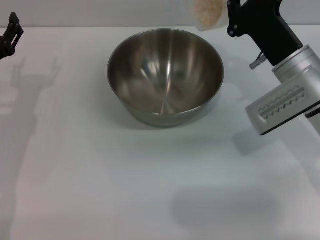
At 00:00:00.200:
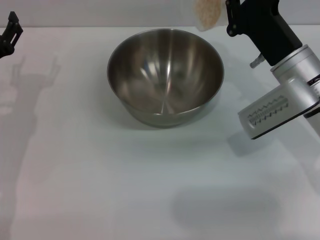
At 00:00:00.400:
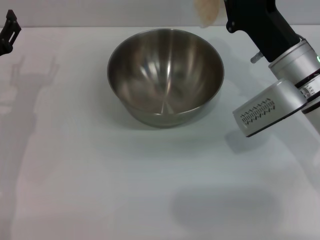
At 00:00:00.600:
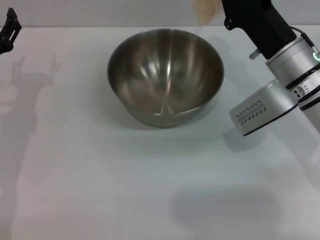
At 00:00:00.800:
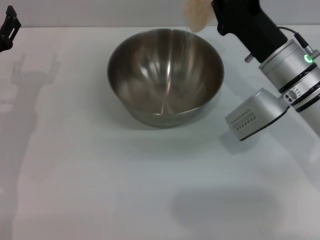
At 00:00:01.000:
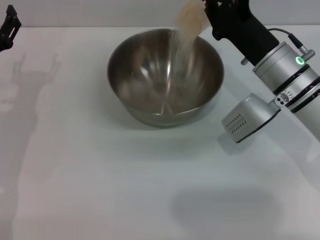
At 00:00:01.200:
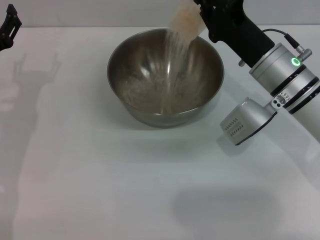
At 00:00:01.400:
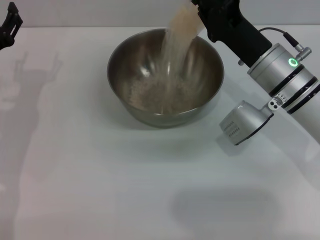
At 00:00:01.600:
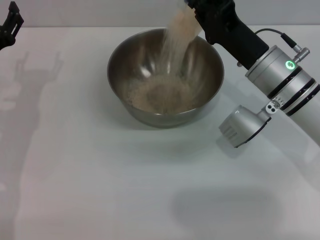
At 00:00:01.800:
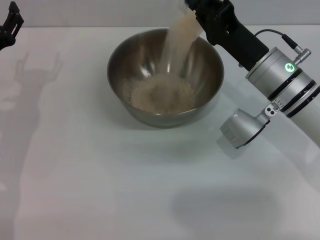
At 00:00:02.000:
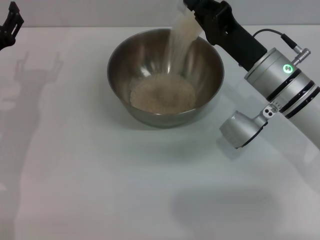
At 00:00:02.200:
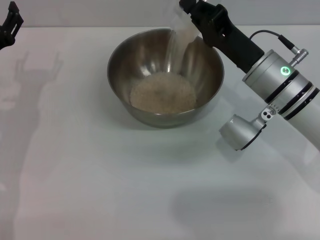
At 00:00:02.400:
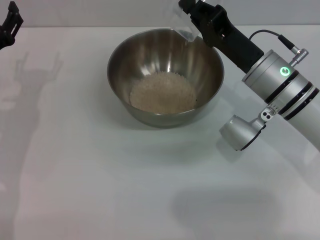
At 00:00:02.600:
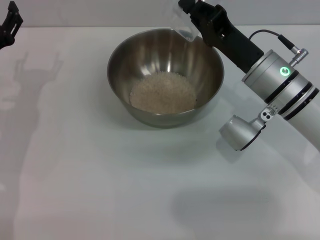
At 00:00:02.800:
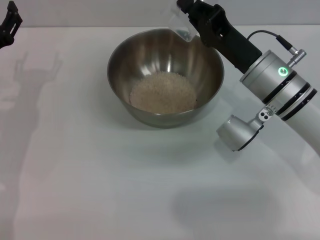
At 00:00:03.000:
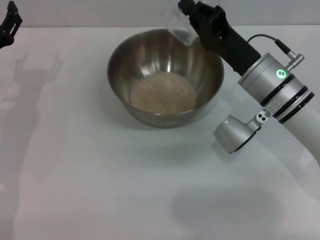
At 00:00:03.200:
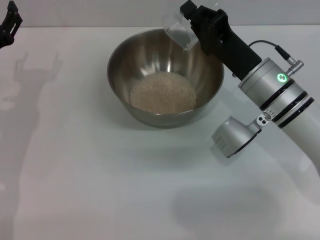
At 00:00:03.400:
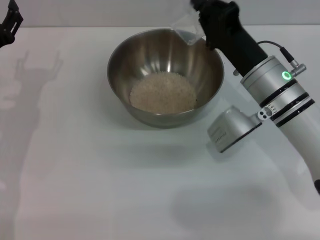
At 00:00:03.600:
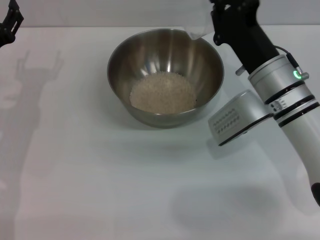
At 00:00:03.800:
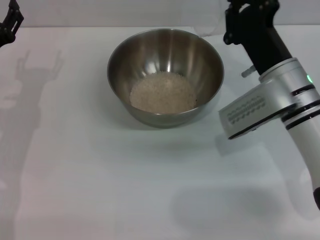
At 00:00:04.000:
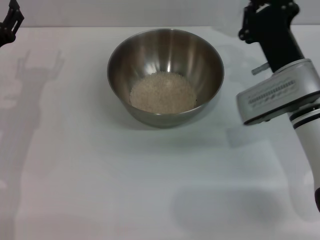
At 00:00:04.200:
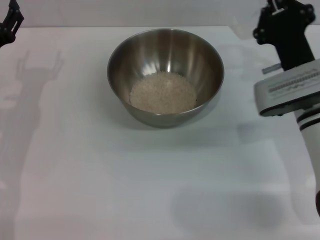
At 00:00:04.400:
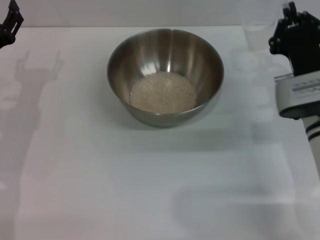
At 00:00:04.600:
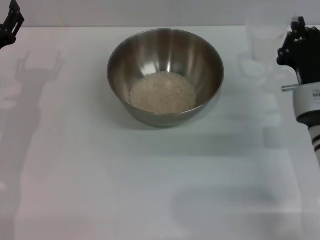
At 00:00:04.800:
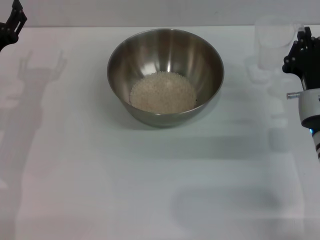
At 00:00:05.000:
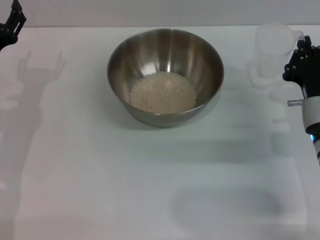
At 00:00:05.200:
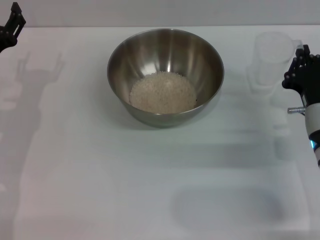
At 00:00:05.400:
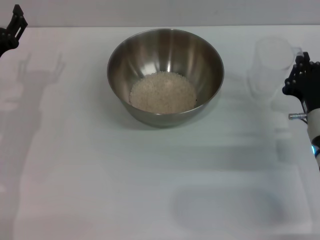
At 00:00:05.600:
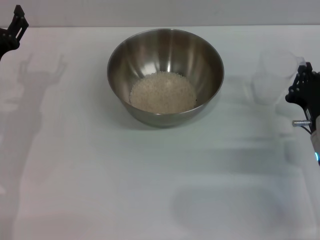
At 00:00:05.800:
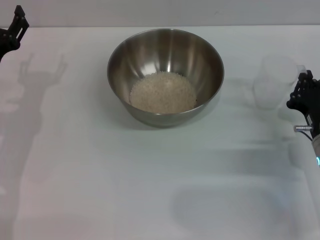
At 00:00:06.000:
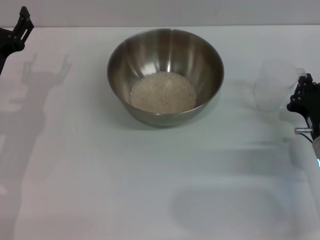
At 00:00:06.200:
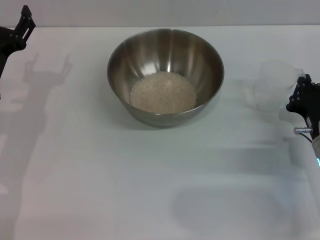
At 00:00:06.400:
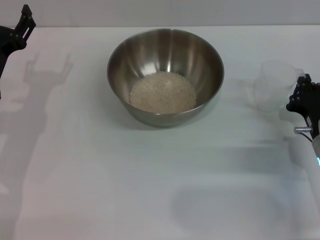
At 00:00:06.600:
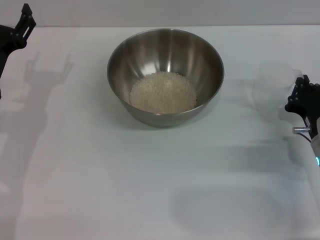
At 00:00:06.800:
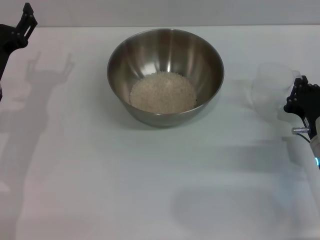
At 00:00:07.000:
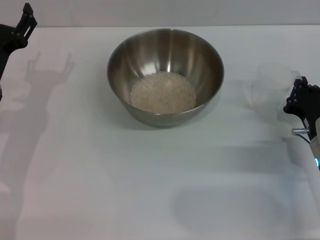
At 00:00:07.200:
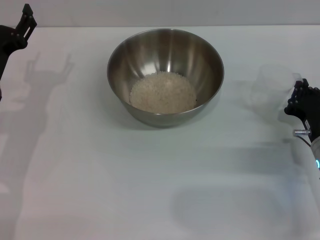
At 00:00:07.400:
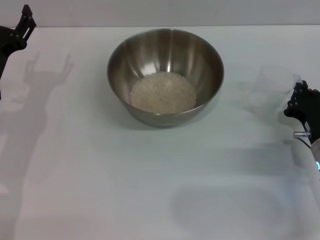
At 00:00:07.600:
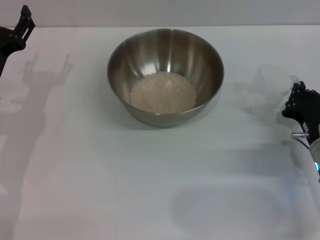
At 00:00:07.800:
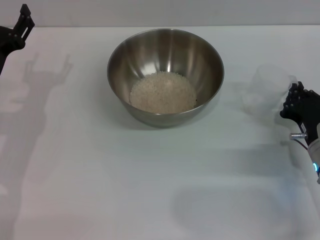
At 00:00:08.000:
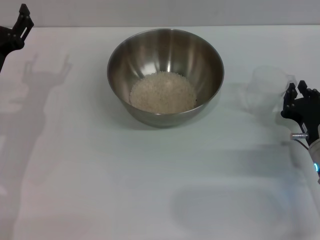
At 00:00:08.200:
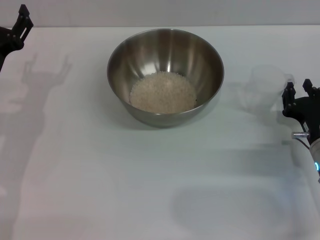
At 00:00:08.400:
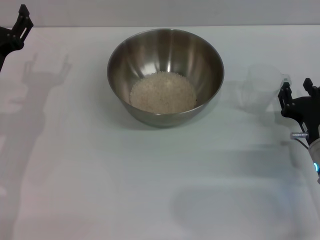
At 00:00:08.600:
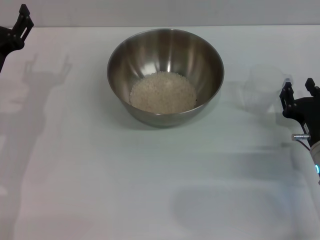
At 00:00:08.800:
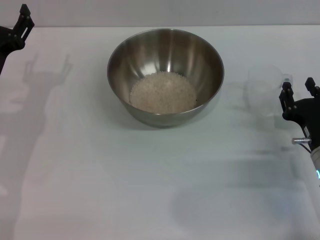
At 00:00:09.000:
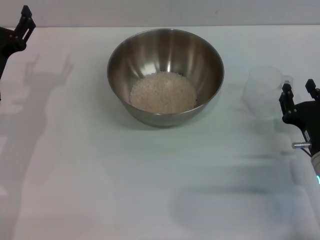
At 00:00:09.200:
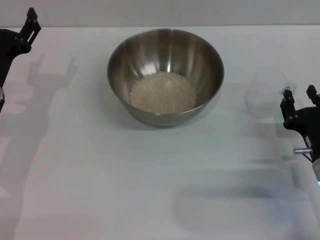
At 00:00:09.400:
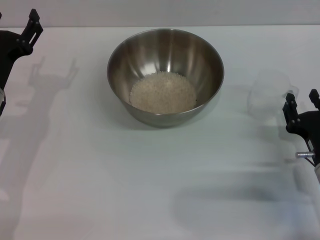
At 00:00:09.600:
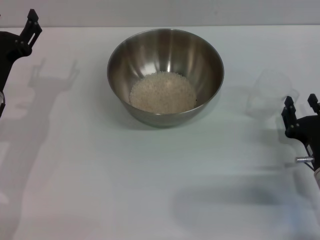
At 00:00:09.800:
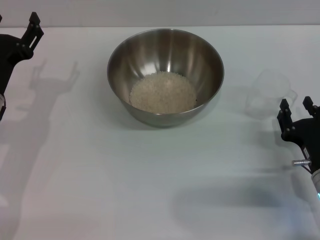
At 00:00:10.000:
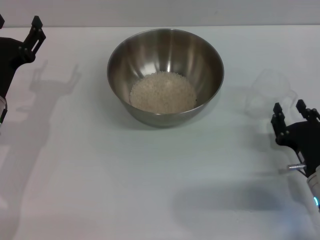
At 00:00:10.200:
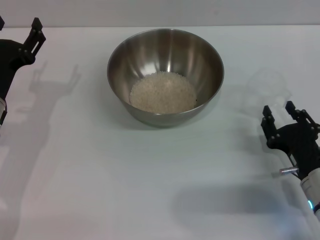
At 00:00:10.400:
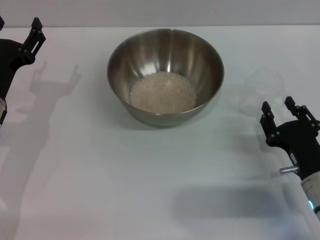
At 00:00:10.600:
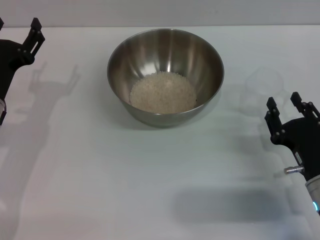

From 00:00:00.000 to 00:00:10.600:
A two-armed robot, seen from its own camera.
Task of the whole recording: Place the bowl in the middle of the table with one hand and pour the rice from the grain cup into it with the other hand.
Step, from 00:00:00.000 to 00:00:04.200: Pour the rice from the cup into the bowl with the right gripper.
Step, from 00:00:04.400 to 00:00:09.800: Place the cup on the table with the right gripper.
From 00:00:01.600 to 00:00:03.000: The grippers stay close to where they were, moving slightly.
From 00:00:03.000 to 00:00:04.600: The right gripper travels to the right by roughly 5 cm.
From 00:00:04.600 to 00:00:06.000: The right gripper changes place by about 5 cm.
From 00:00:06.000 to 00:00:07.600: Both grippers stay put.
From 00:00:07.600 to 00:00:09.000: The right gripper opens up.
From 00:00:09.000 to 00:00:10.600: The grippers make only small movements.

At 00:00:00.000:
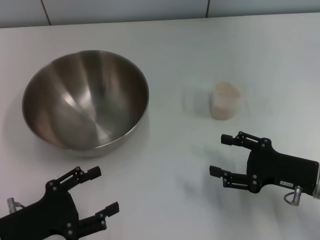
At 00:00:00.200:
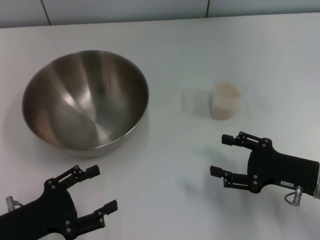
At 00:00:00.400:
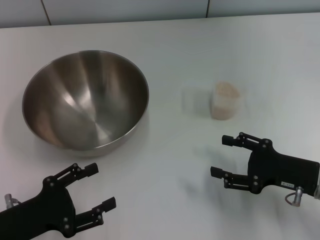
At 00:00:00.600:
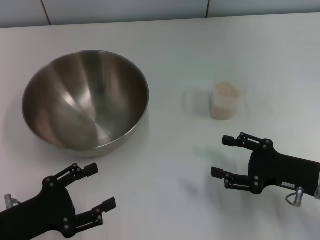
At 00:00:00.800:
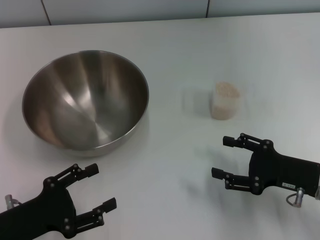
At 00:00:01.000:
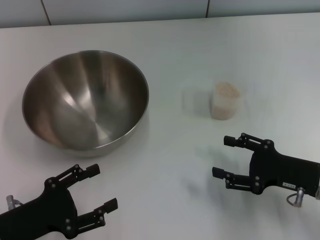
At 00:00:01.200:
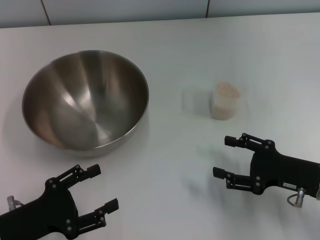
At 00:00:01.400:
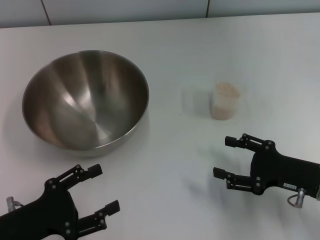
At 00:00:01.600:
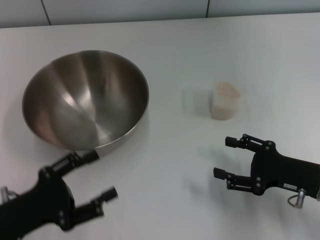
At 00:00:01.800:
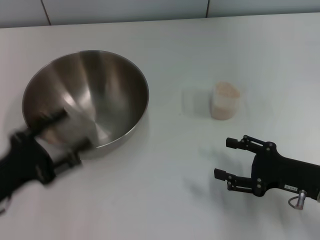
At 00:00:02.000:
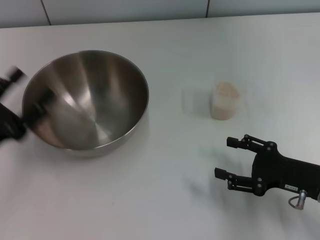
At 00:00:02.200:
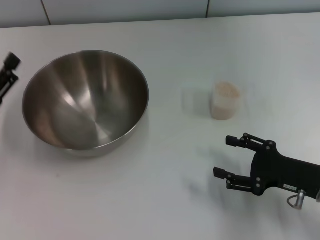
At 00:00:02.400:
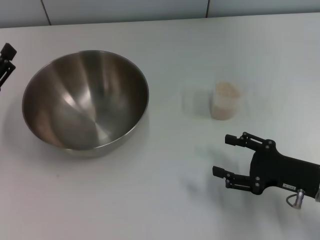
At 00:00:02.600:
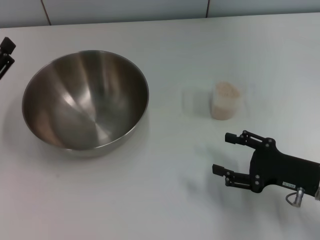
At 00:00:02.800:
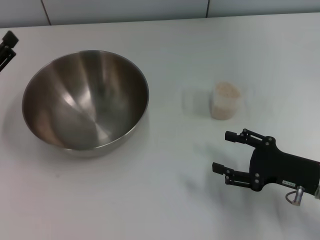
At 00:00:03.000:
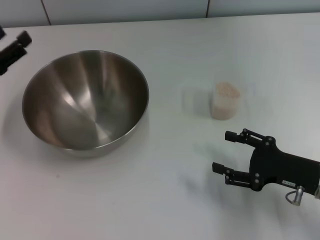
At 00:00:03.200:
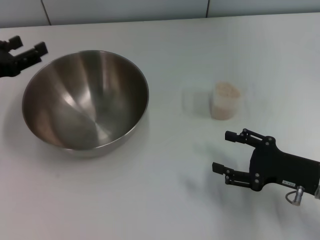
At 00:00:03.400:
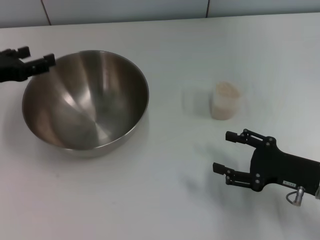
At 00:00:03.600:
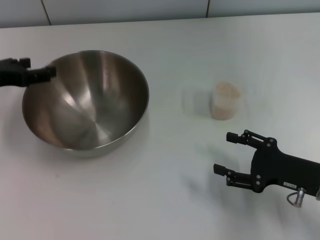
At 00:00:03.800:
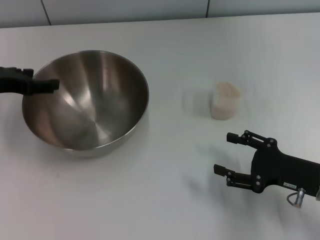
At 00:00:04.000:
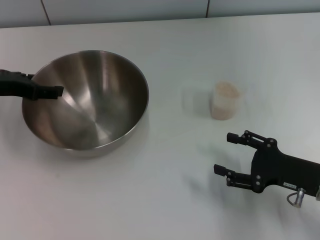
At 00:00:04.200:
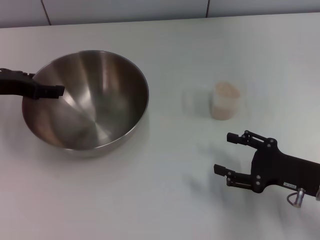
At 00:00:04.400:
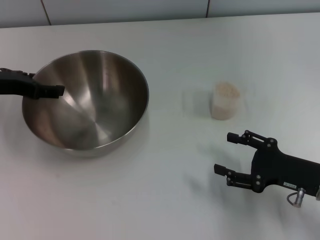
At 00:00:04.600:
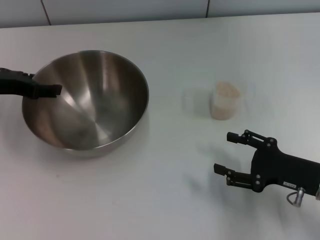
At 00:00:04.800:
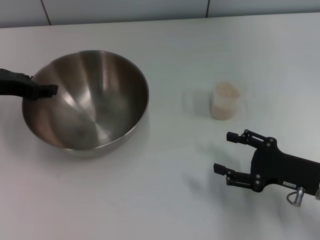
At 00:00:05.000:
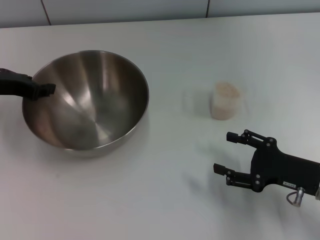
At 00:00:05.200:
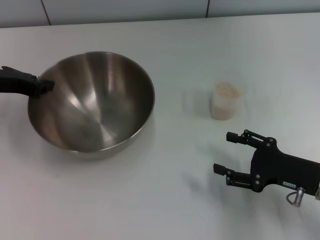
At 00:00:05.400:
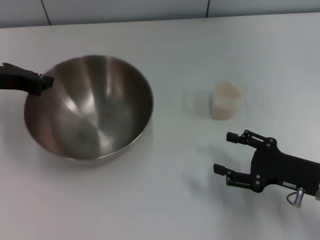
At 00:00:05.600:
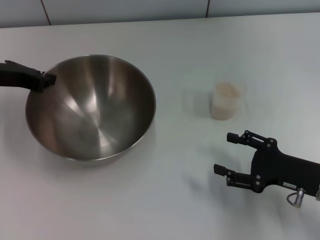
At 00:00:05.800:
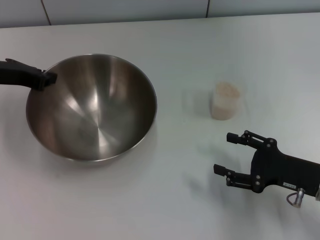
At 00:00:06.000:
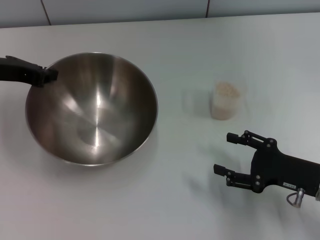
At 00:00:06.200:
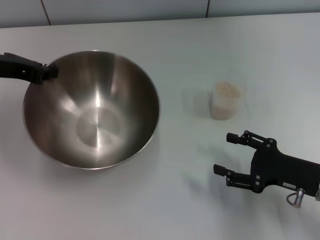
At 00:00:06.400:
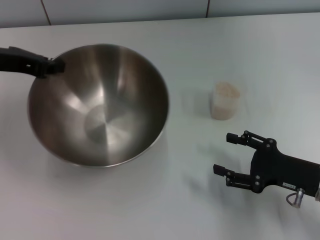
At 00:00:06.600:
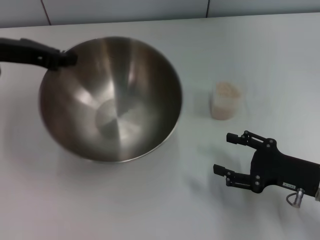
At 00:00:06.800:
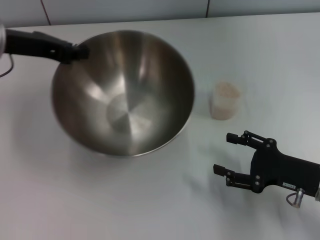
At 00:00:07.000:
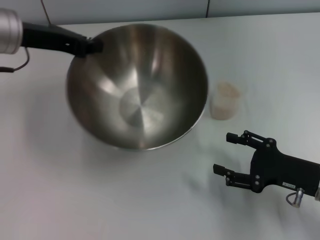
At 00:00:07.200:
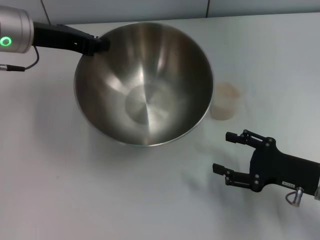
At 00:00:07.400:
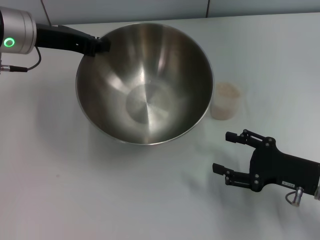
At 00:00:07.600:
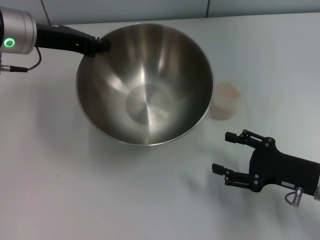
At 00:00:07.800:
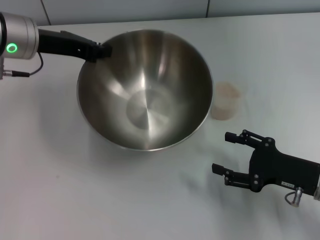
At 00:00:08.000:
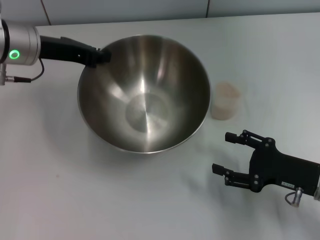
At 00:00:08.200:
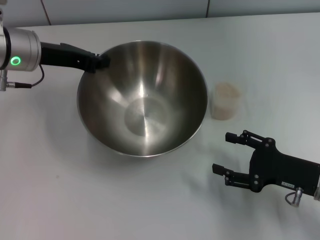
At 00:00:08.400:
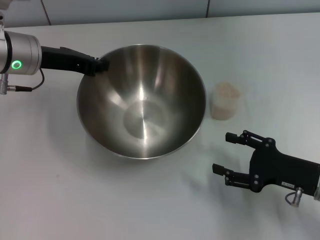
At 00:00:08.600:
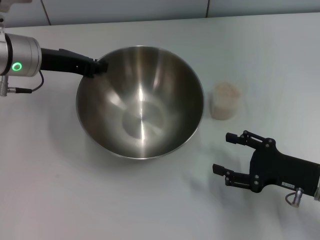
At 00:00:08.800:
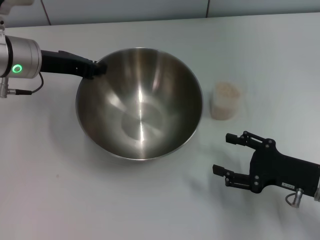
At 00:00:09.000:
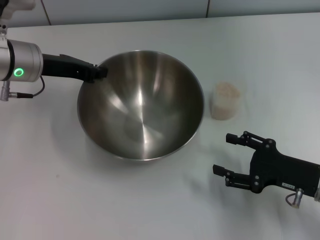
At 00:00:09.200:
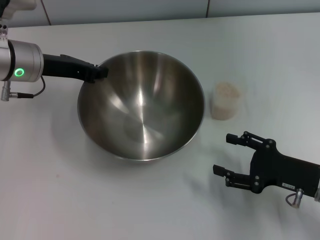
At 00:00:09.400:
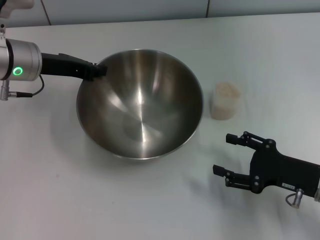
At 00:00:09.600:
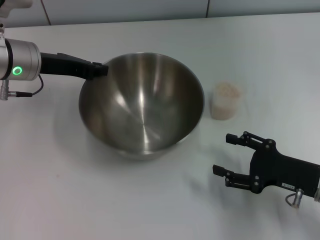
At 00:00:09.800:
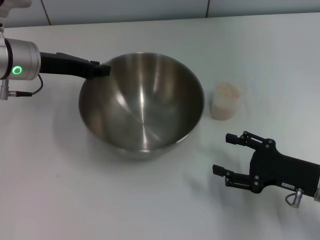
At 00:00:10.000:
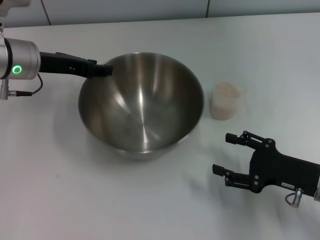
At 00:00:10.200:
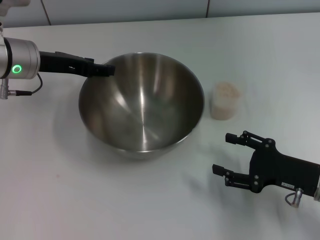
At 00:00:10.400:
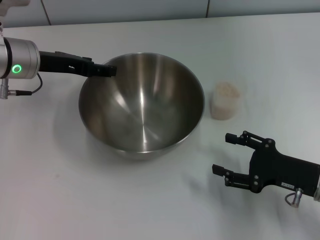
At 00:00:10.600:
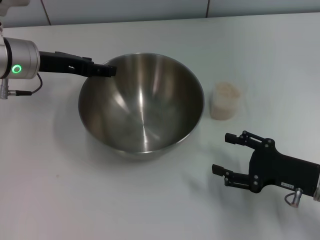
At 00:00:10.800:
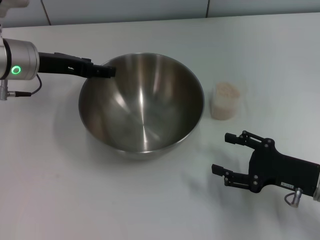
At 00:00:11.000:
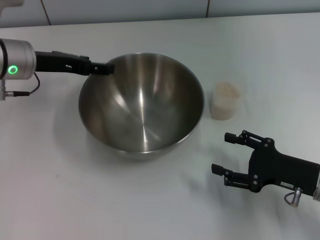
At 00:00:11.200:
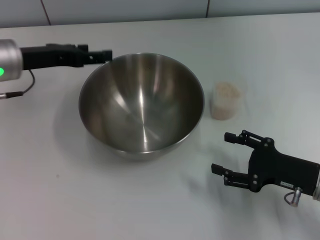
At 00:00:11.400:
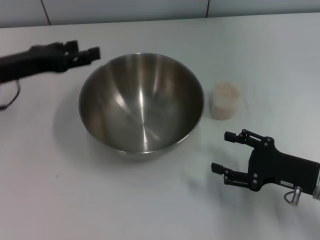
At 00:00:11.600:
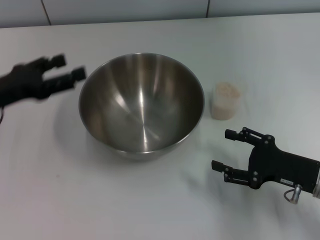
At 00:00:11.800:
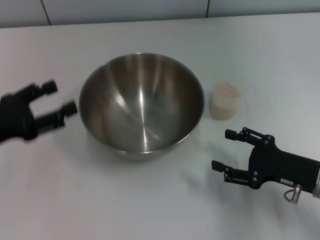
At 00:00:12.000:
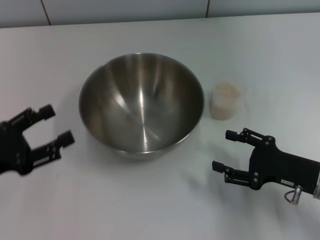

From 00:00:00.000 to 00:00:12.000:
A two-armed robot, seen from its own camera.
Task of the whole recording: Place the bowl in the middle of the table with one hand and pour the rice from the grain cup into it with the other hand.
Step, from 00:00:00.000 to 00:00:06.200: Pick up the bowl with the left gripper.
Step, from 00:00:06.400 to 00:00:11.200: Place the bowl in the center of view with the left gripper.
From 00:00:00.000 to 00:00:01.600: There are only small adjustments of the grippers.
From 00:00:01.600 to 00:00:03.000: The left gripper moves forward, to the left and upward, approximately 15 cm.
From 00:00:03.000 to 00:00:04.400: The left gripper travels forward by some 5 cm.
From 00:00:04.400 to 00:00:06.000: The left gripper closes.
From 00:00:06.000 to 00:00:07.600: The left gripper heads to the right, covering roughly 5 cm.
From 00:00:09.000 to 00:00:10.400: The left gripper opens up.
From 00:00:10.400 to 00:00:12.000: The left gripper heads backward and to the left, covering about 20 cm.
